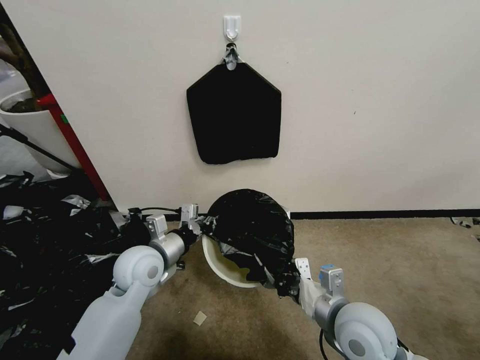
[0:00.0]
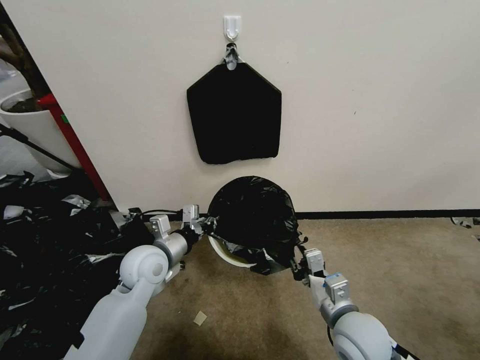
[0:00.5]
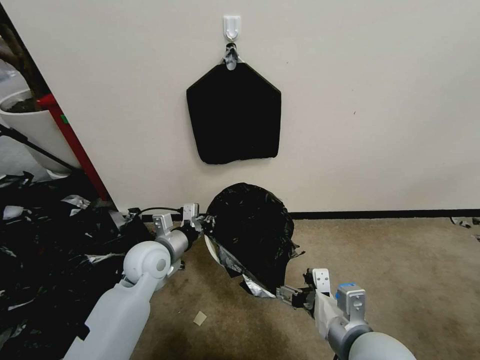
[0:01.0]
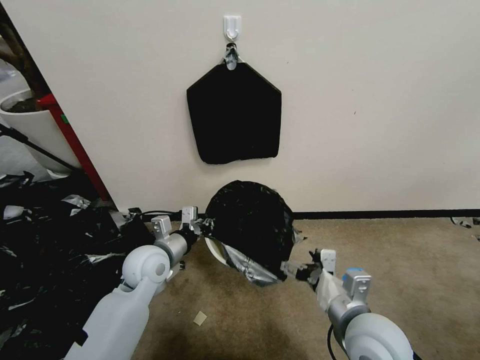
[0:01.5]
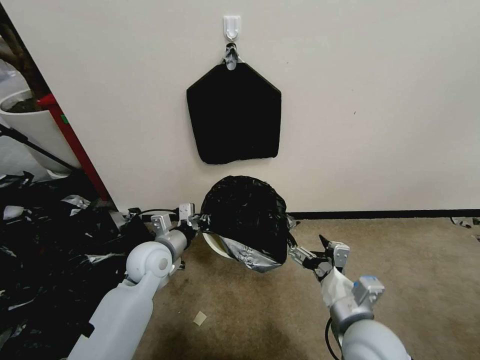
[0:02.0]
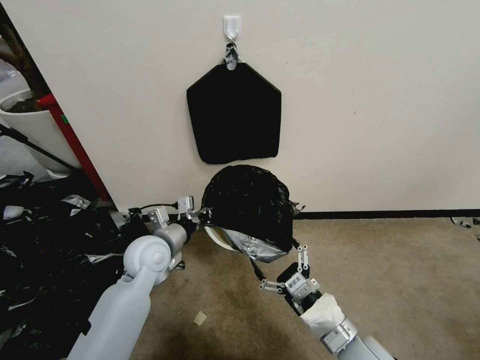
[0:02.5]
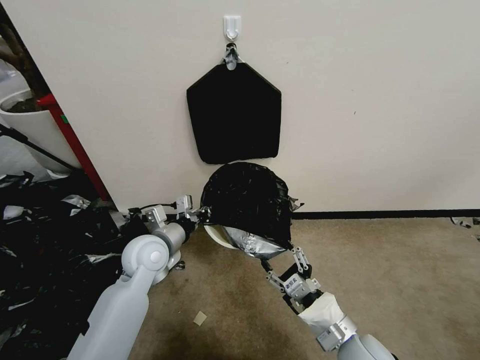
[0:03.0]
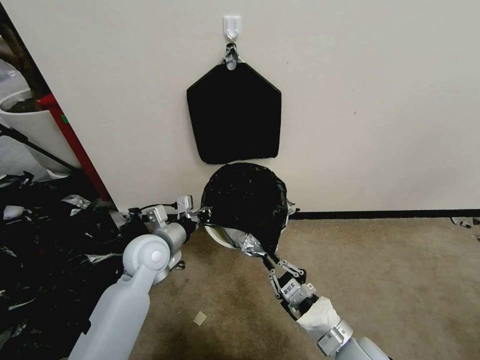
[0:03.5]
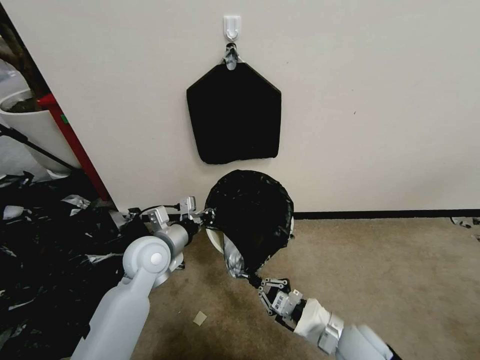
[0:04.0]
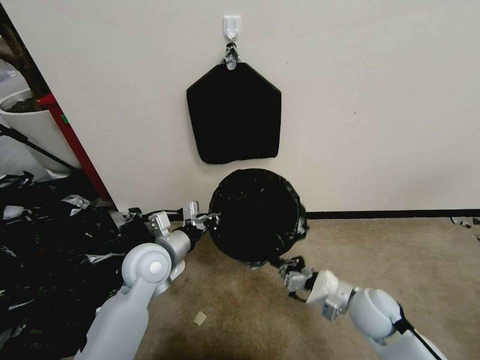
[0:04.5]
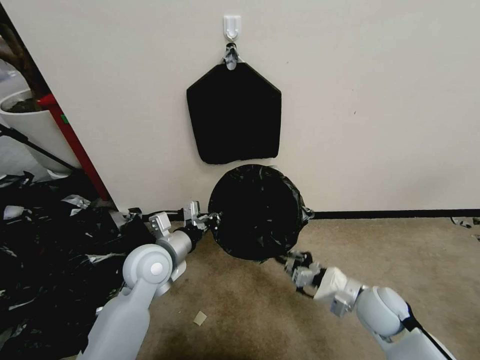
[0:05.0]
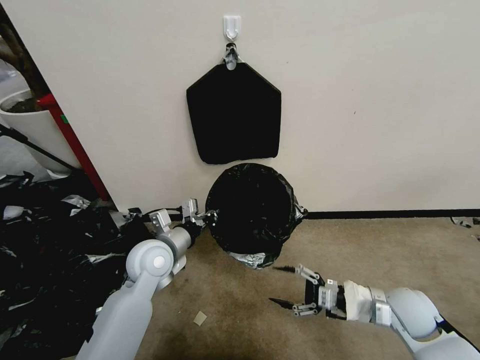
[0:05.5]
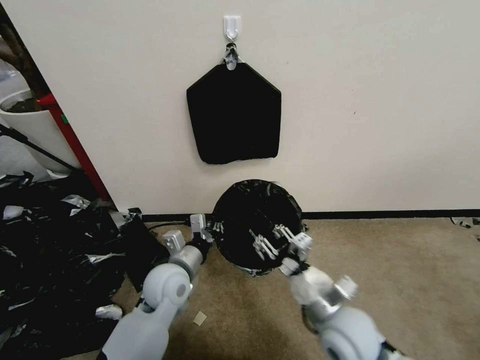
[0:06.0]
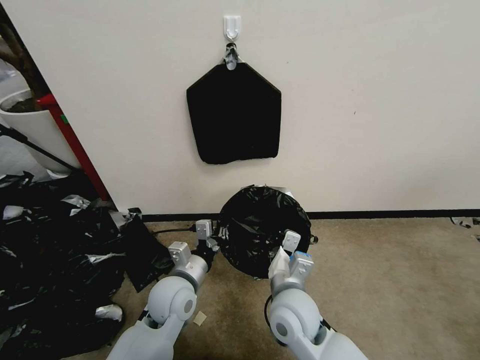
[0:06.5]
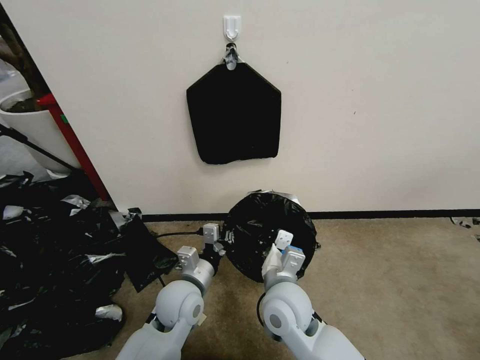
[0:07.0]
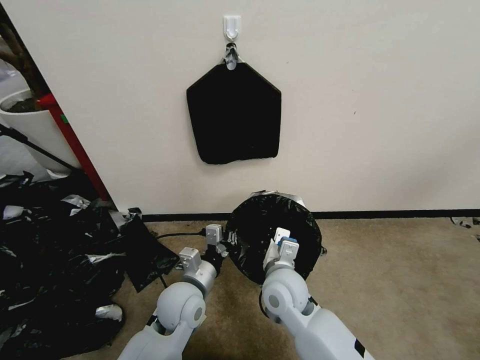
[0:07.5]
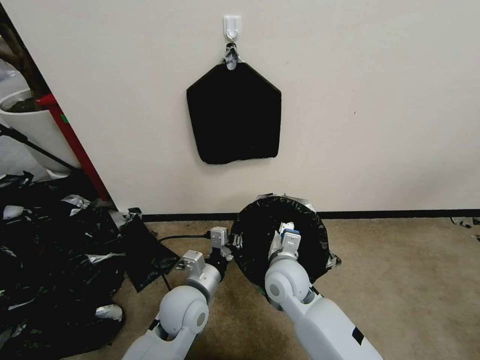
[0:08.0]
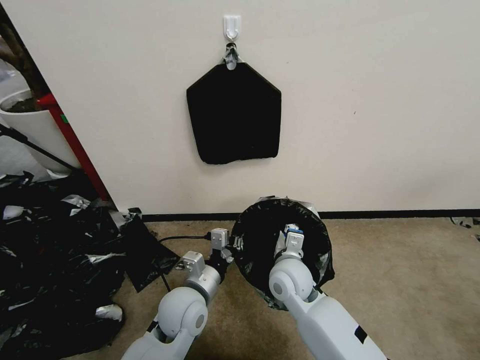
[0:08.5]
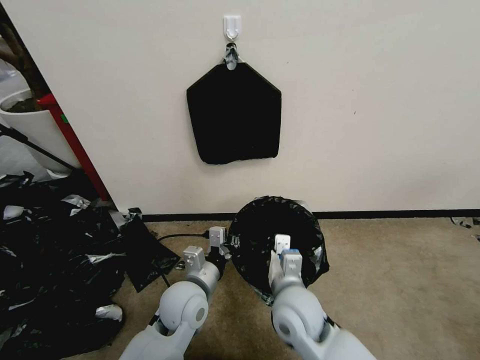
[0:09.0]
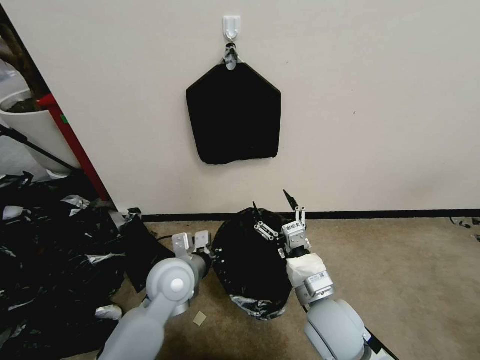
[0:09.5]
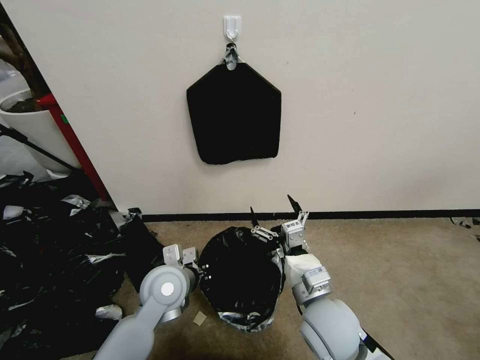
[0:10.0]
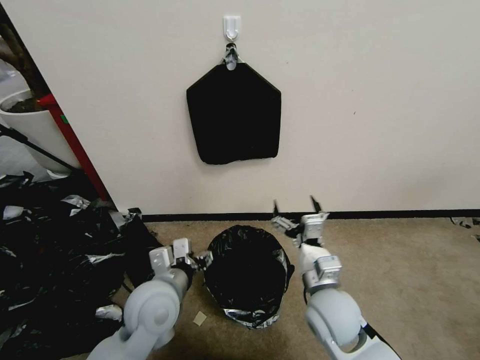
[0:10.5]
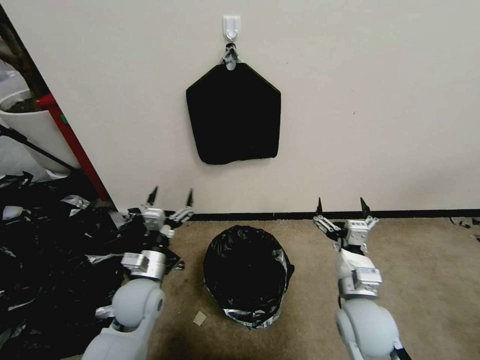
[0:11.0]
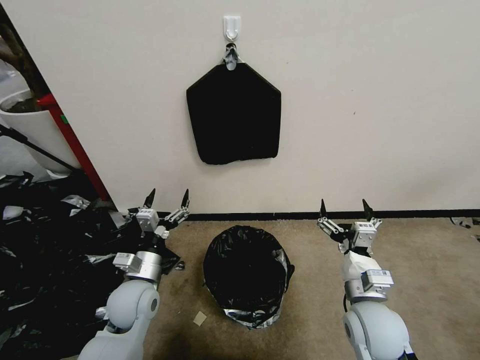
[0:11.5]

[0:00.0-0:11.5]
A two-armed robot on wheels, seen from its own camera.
Task of the whole recording: Place a trash bag onto the trash bin.
0:00.0 to 0:02.0: The right gripper moves up and down over approximately 10 cm, changing direction 2 times, and opens up.
0:02.0 to 0:04.0: The right gripper goes approximately 10 cm downward, and closes up.
0:04.0 to 0:06.0: The left gripper heads downward, covering about 5 cm. Meanwhile the right gripper shifts approximately 10 cm upward and to the left, and opens.
0:06.0 to 0:07.5: The right gripper travels to the left and forward by some 10 cm, and closes.
0:07.5 to 0:09.5: The right gripper heads to the right and backward, covering roughly 10 cm, and opens up. The left gripper moves upward, about 5 cm.
0:09.5 to 0:11.5: The left gripper moves to the left and downward, some 10 cm, and opens its fingers. The right gripper travels to the right by roughly 10 cm.
